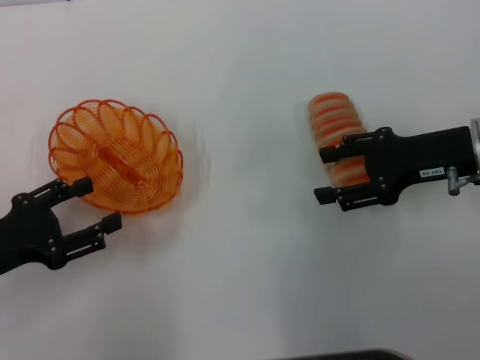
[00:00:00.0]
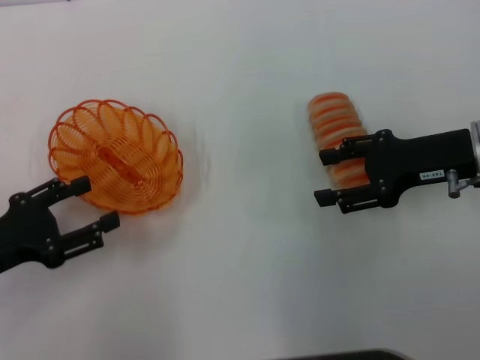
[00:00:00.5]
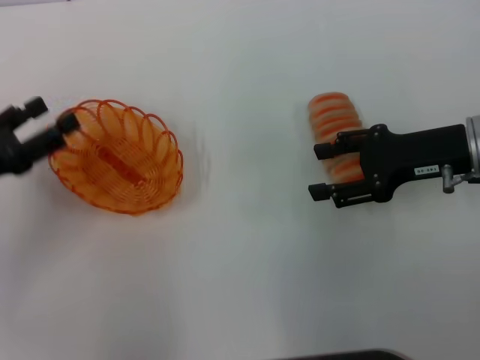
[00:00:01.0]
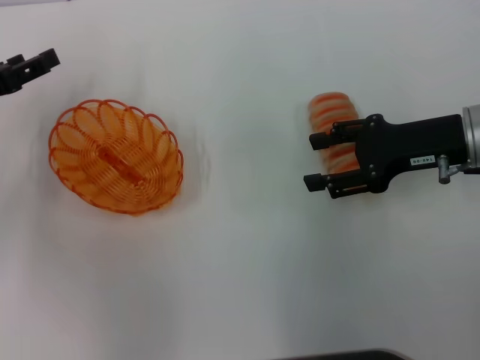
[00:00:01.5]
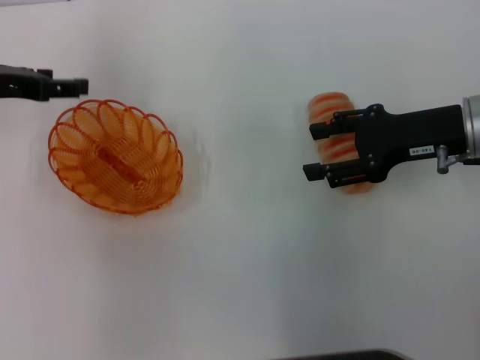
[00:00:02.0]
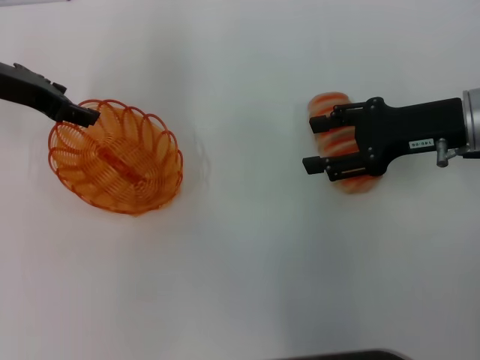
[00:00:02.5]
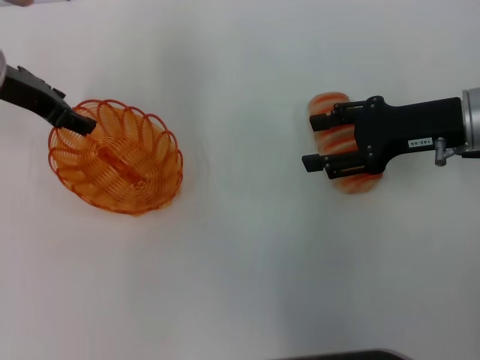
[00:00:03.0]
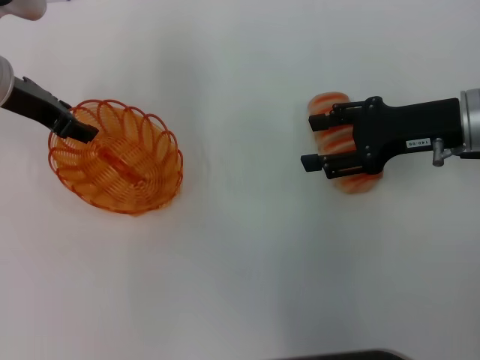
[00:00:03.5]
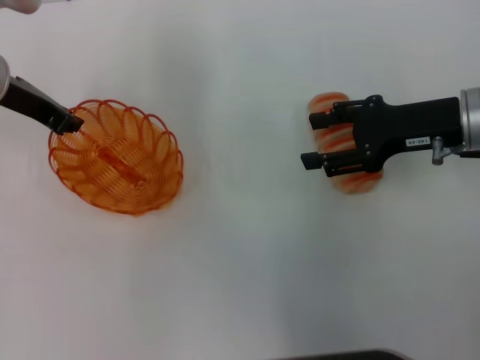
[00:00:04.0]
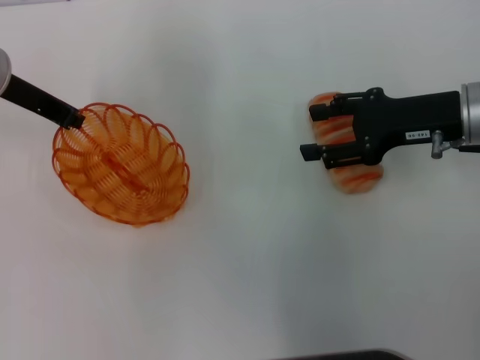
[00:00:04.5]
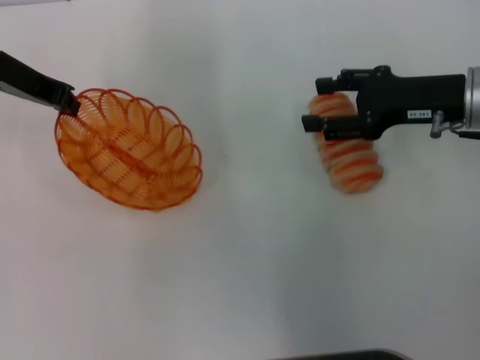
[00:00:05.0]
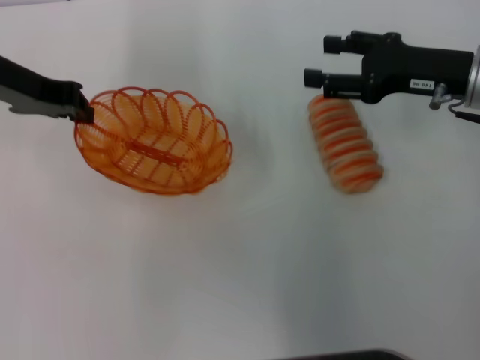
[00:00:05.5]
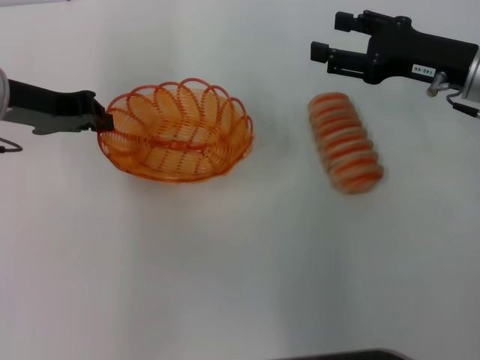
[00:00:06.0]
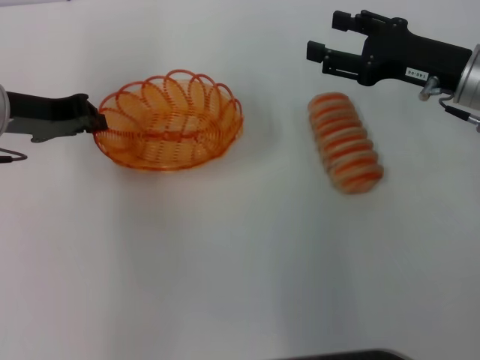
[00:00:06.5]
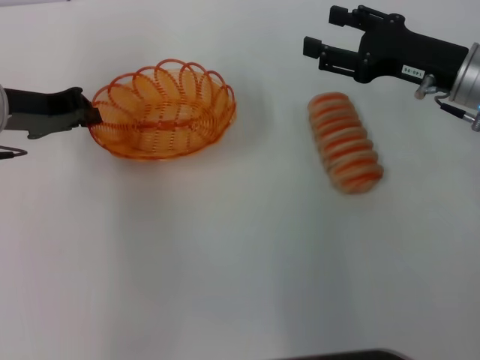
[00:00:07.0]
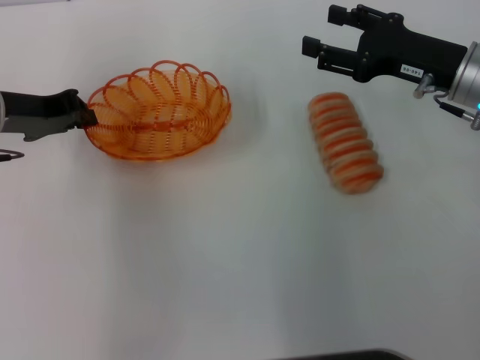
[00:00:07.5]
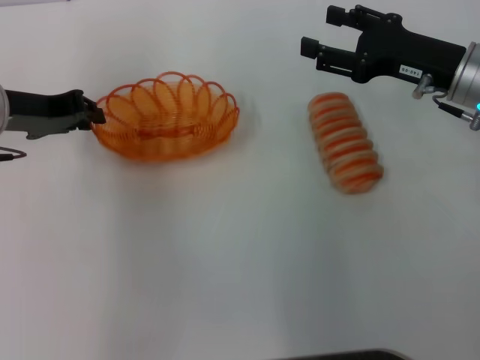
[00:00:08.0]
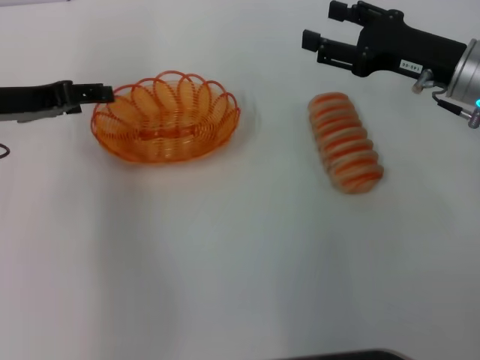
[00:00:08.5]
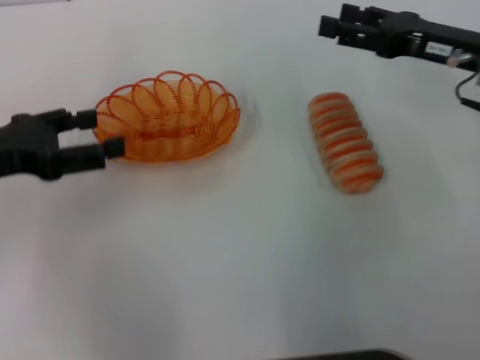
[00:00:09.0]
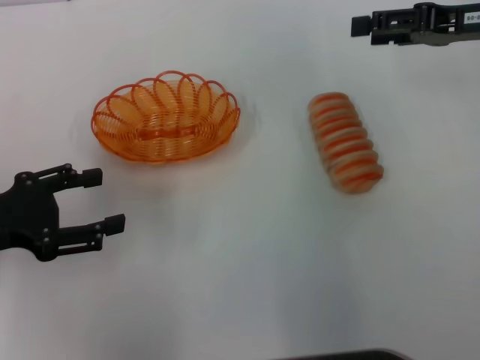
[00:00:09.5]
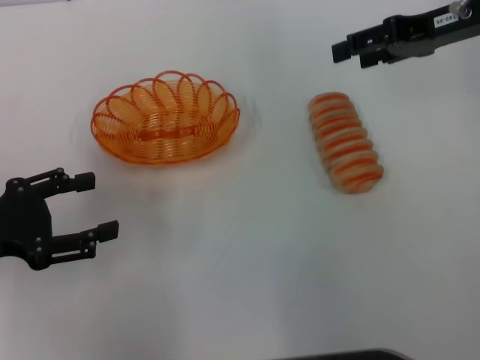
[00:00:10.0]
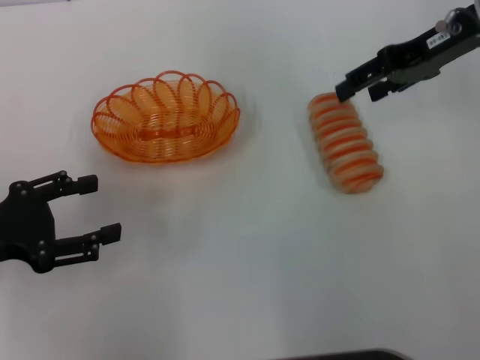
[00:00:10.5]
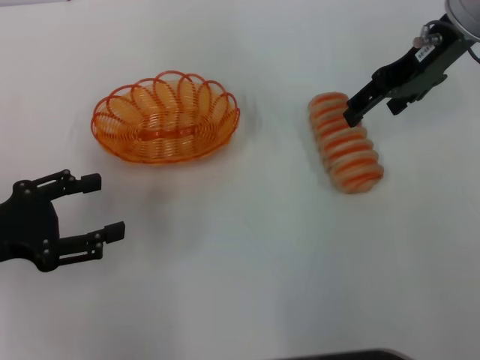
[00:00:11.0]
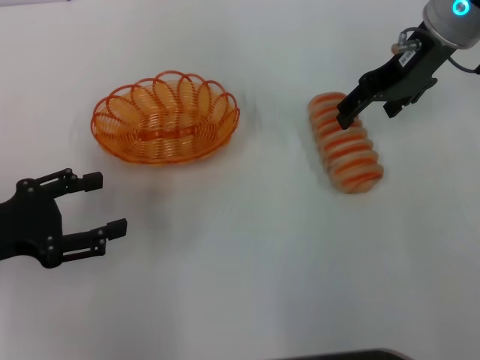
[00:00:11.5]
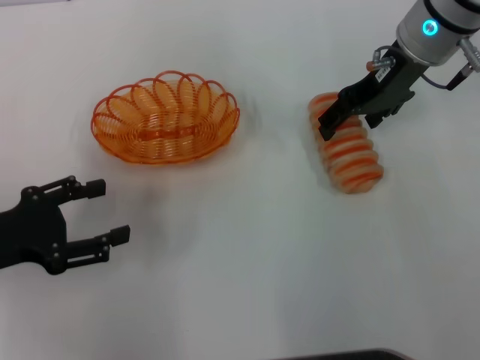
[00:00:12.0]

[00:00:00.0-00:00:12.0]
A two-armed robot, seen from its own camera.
Step, 00:00:00.0 to 00:00:04.5: Pick up the basket with the left gripper.
Step, 00:00:05.0 to 00:00:08.5: Place the basket in the center of view with the left gripper.
00:00:00.0 to 00:00:02.0: The left gripper is displaced forward and upward by about 20 cm.
00:00:02.0 to 00:00:04.0: The left gripper is displaced to the right by about 5 cm, and closes up.
00:00:06.0 to 00:00:08.0: The grippers make only small movements.
00:00:08.0 to 00:00:10.0: The right gripper shifts some 10 cm upward. The left gripper heads backward and to the left, covering approximately 15 cm, and opens up.
00:00:10.0 to 00:00:12.0: The right gripper shifts some 10 cm to the left.

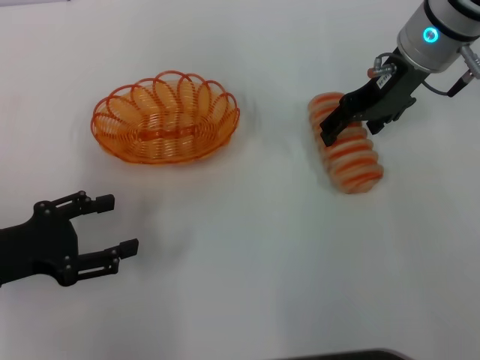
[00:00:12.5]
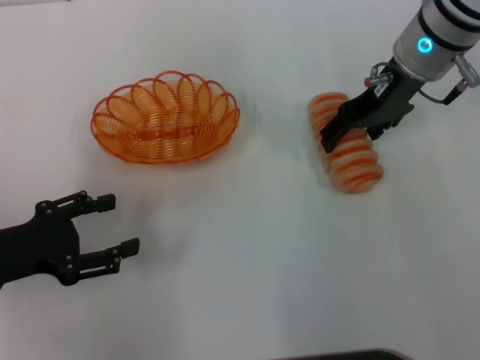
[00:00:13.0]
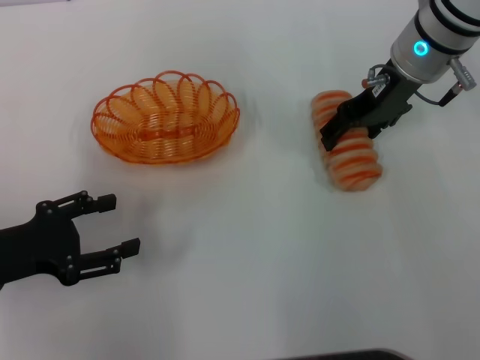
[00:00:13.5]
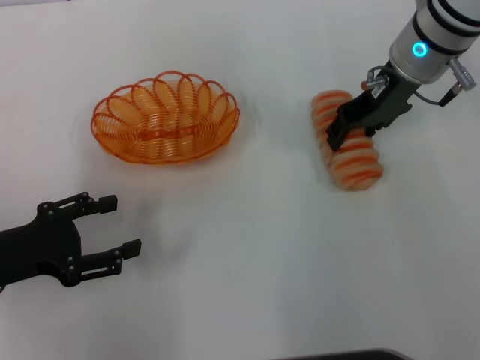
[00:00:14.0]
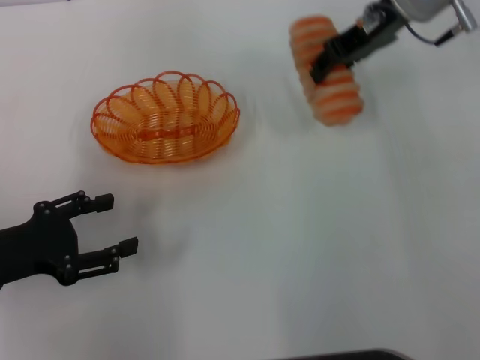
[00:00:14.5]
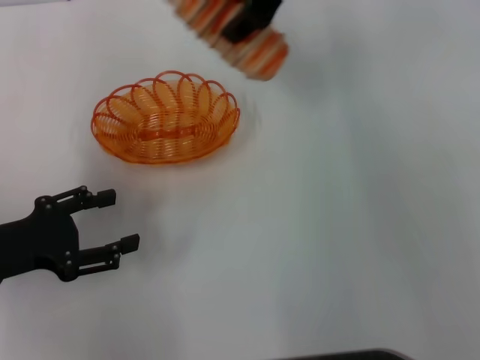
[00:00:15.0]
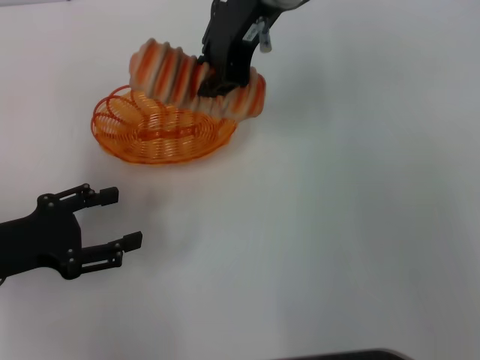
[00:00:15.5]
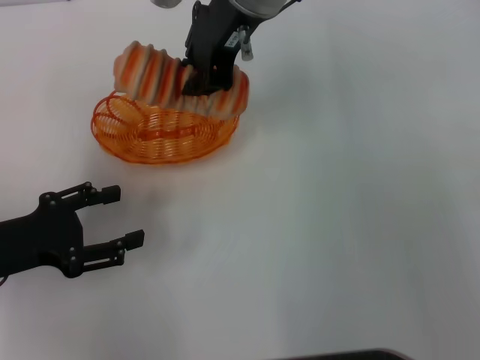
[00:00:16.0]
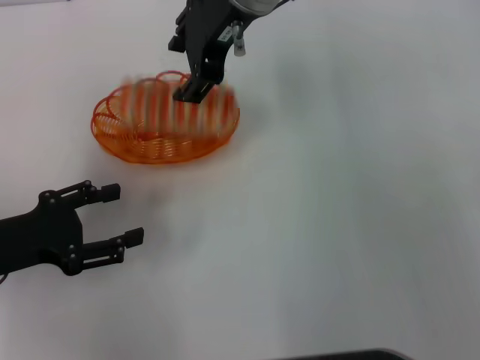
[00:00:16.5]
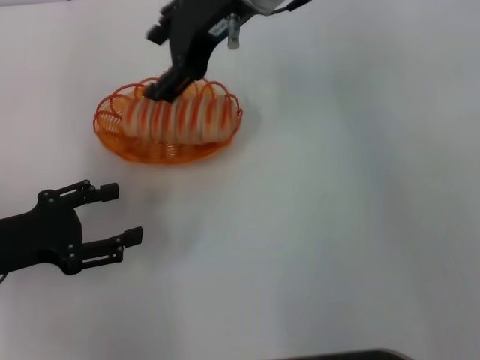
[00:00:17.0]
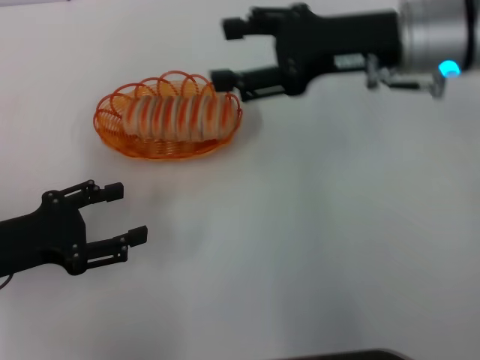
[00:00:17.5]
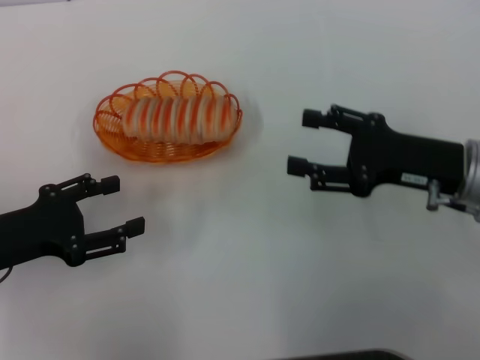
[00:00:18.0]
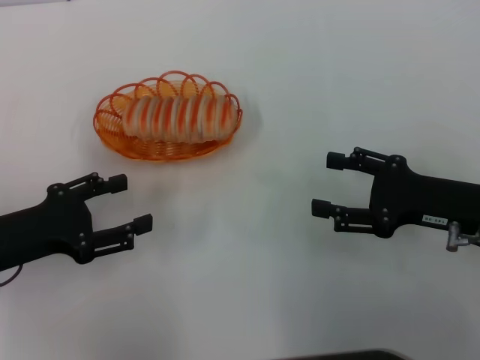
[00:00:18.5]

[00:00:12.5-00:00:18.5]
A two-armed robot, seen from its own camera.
Step, 00:00:14.5 to 00:00:16.5: Place the long bread into the basket with the right gripper.
00:00:12.5 to 00:00:14.5: The right gripper closes.
00:00:14.5 to 00:00:16.5: The right gripper shifts about 15 cm to the left, and closes, then opens again.
00:00:16.5 to 00:00:18.5: The right gripper moves to the right, downward and backward, some 35 cm, and opens its fingers.
